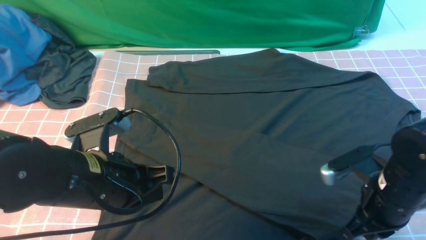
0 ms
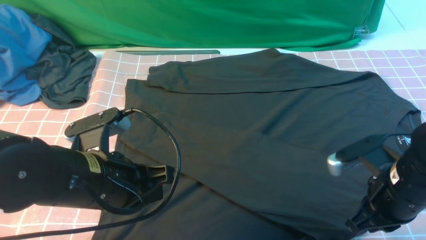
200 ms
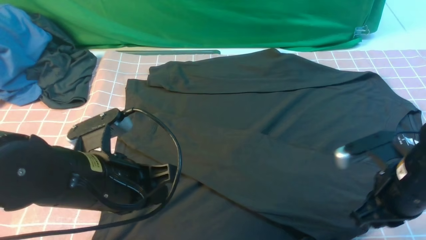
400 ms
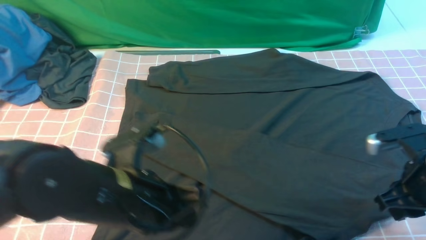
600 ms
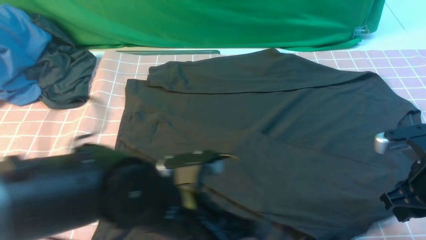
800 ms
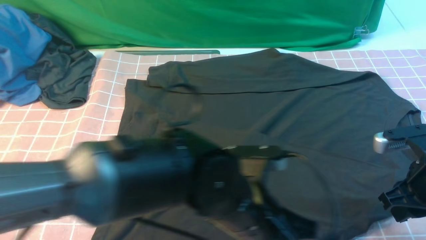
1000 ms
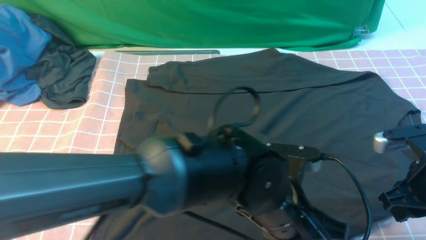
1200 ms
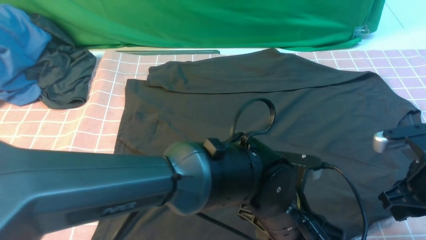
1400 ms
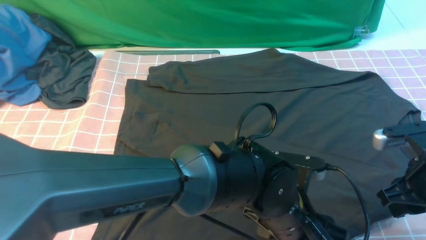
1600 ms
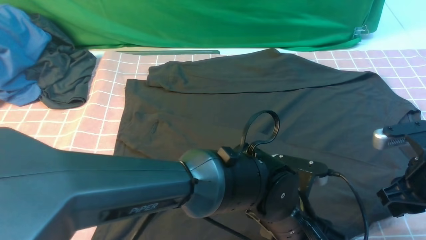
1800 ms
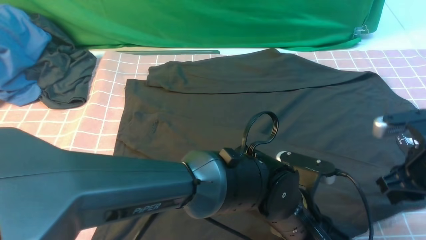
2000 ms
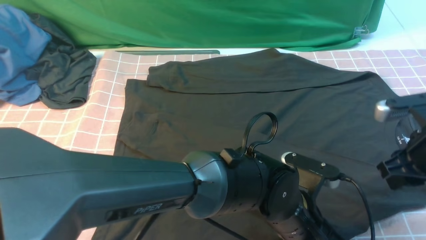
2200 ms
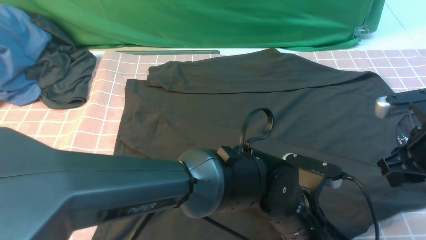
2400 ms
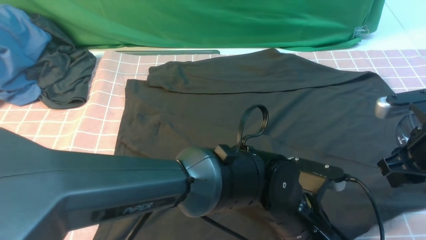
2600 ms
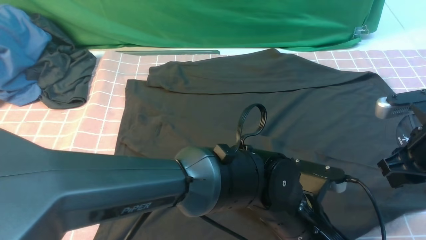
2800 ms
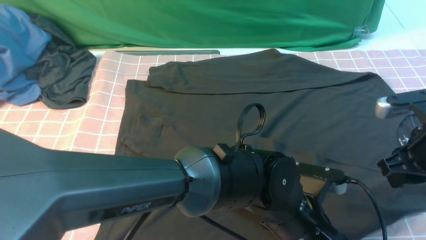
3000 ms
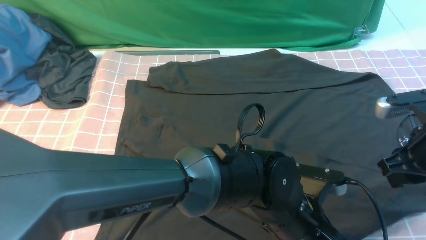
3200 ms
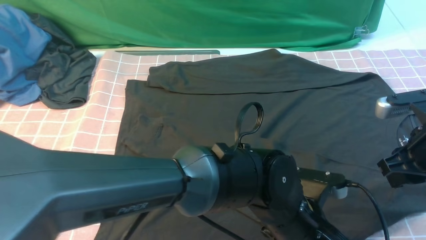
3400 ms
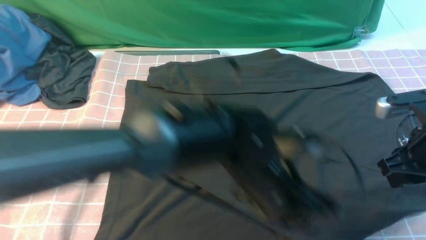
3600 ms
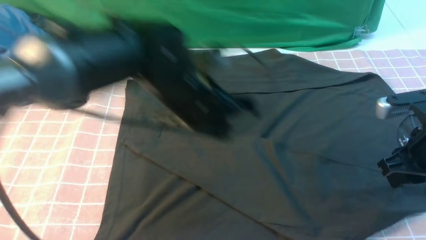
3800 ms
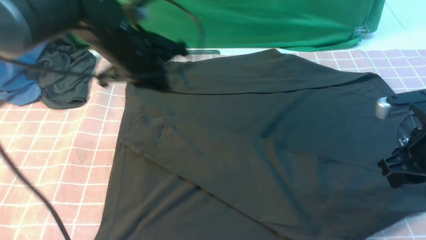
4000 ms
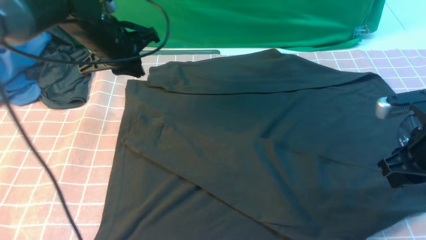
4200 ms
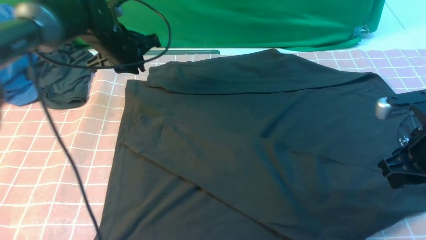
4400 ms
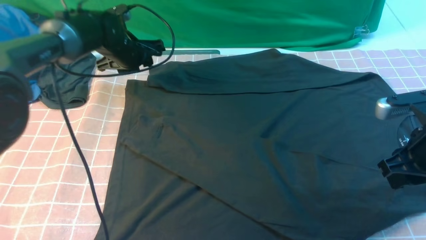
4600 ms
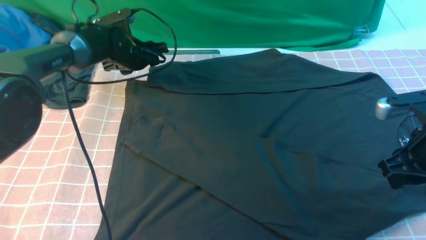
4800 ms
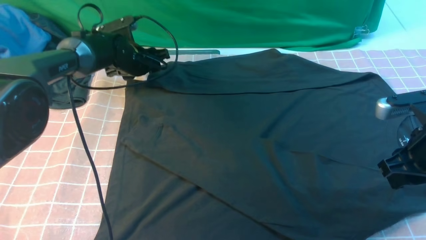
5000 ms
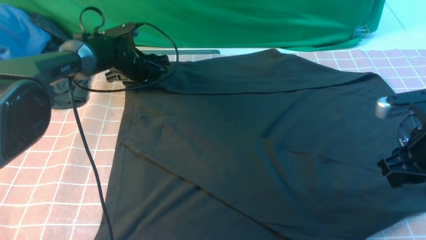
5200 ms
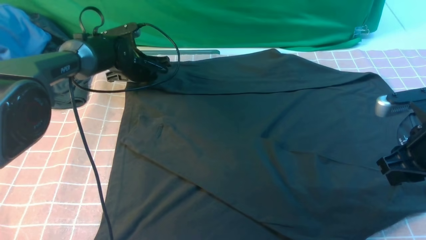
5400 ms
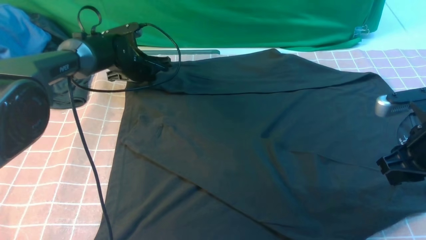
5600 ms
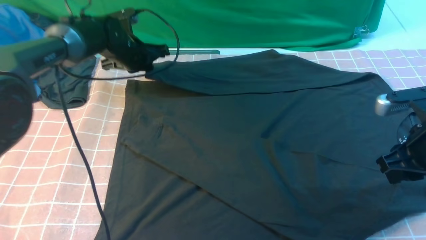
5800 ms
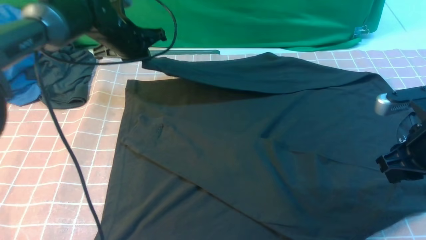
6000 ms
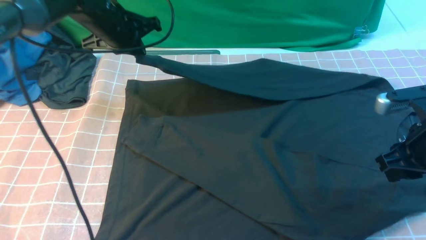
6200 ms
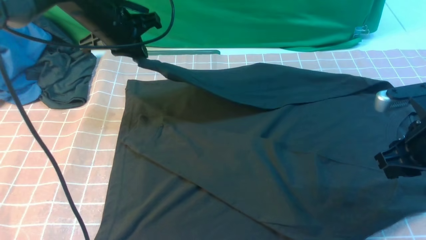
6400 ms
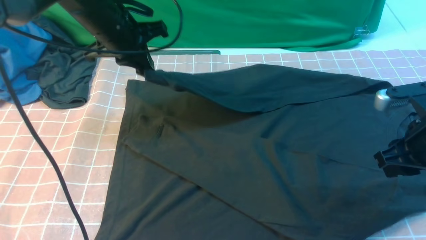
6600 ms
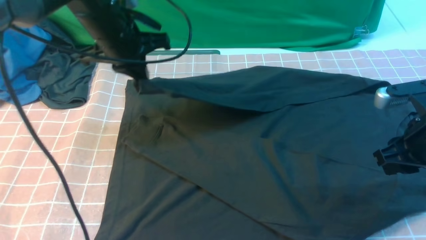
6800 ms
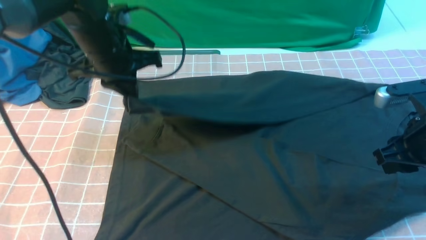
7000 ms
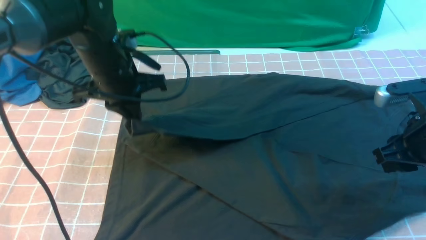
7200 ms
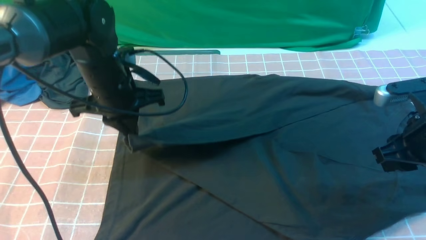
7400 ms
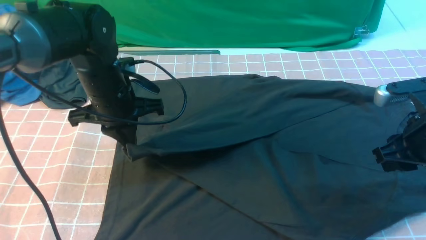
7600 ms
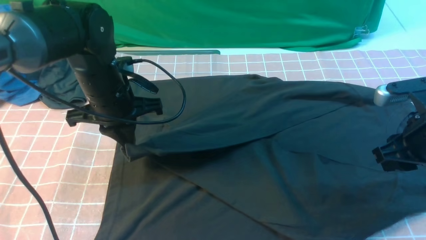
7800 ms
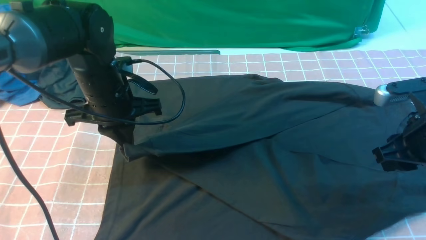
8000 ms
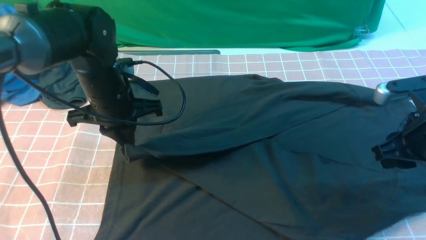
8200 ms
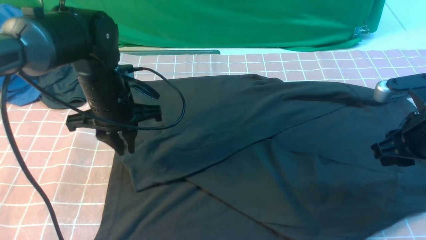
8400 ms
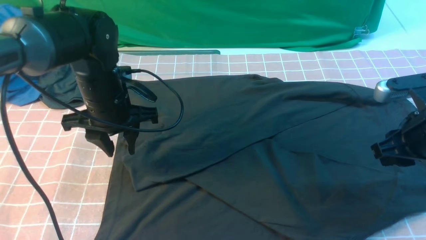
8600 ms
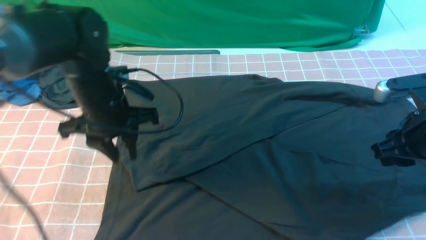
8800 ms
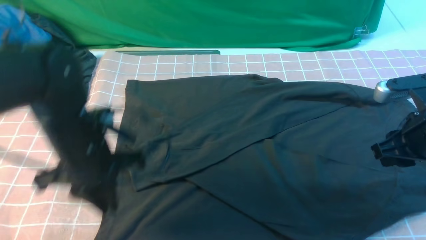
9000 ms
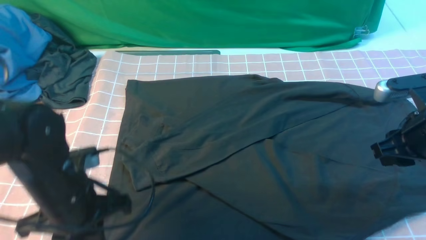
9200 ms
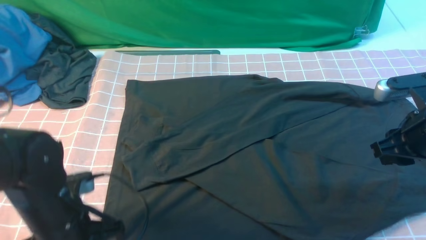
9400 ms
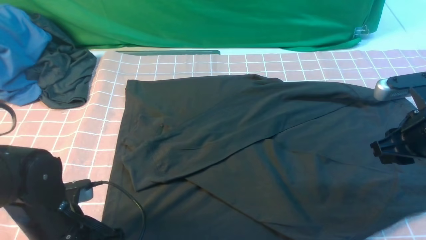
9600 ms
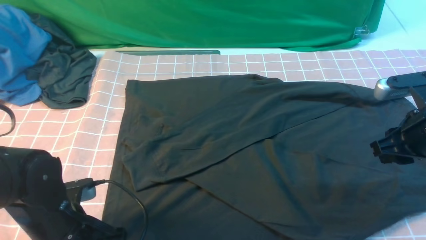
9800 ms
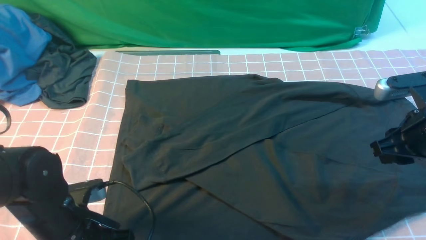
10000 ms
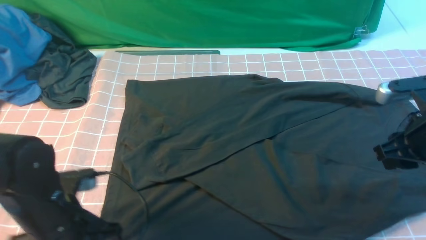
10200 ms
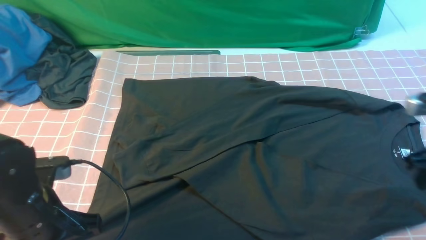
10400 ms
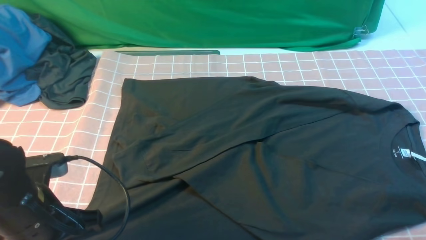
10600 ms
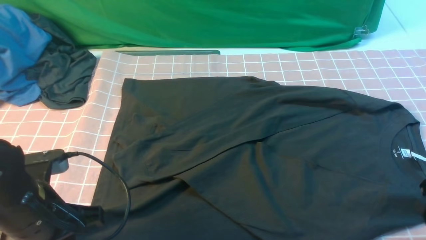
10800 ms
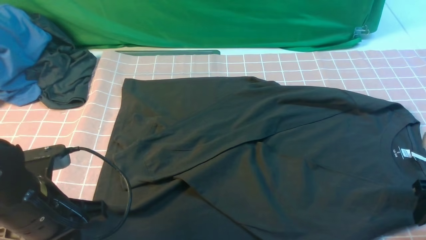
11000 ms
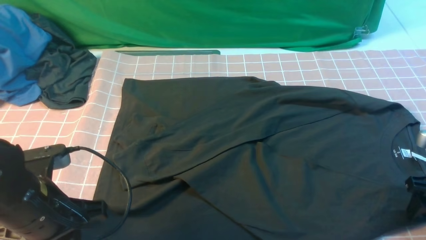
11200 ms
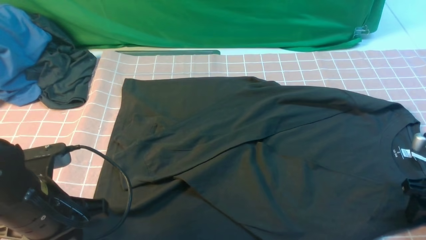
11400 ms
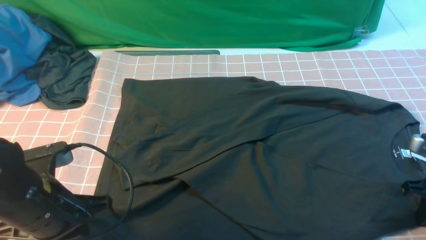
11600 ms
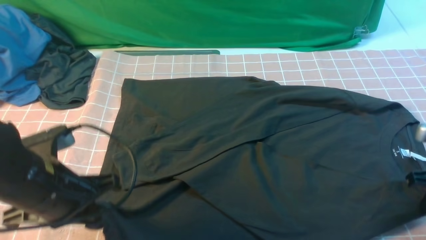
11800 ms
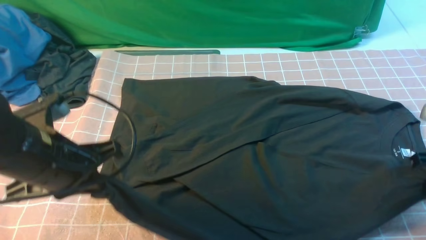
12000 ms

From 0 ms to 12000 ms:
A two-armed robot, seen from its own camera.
Step, from 0 ms to 3400 ms: use the left arm to clamp the cuff farthest from it.
Step, from 3600 ms to 8400 ms: use the left arm to drag and drop the cuff onto the cuff closest to the left arm.
Step, from 8600 ms to 11800 ms: use both arms simultaneously to clamp the lower edge of the clothing fabric.
From 0 ms to 1600 ms: The right gripper shifts some 5 cm to the right, and opens; the left gripper shifts approximately 20 cm to the right, and opens.
From 1600 ms to 3000 ms: The left gripper closes.
From 3000 ms to 4400 ms: The left gripper travels to the left and forward by about 40 cm.
From 4400 ms to 6000 ms: The left gripper goes downward and returns, about 5 cm each way, and opens, then closes again.
From 6000 ms to 7600 ms: The left gripper travels backward by roughly 15 cm.
From 7600 ms to 9000 ms: The left gripper is displaced backward by about 10 cm.
From 9000 ms to 10400 ms: The left gripper shifts approximately 10 cm backward, and opens, then closes again.
From 10400 ms to 12000 ms: The left gripper travels upward by approximately 5 cm, while the right gripper closes up.

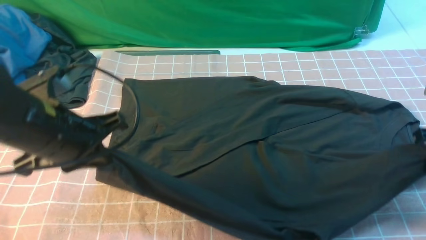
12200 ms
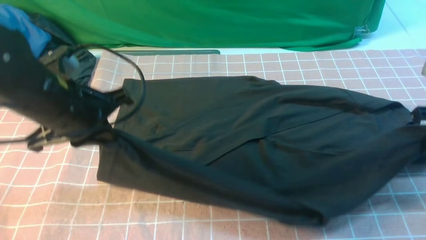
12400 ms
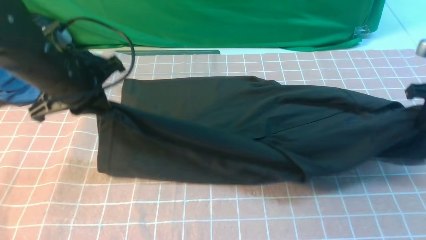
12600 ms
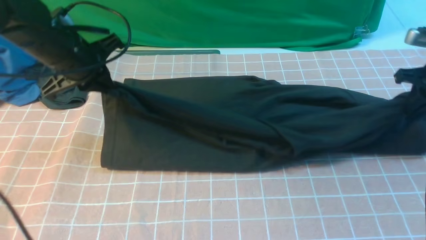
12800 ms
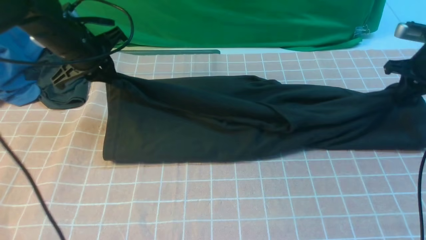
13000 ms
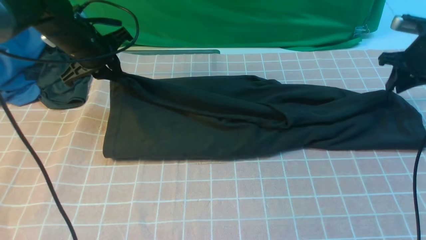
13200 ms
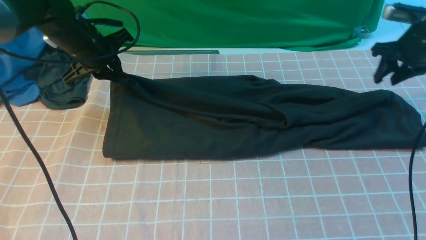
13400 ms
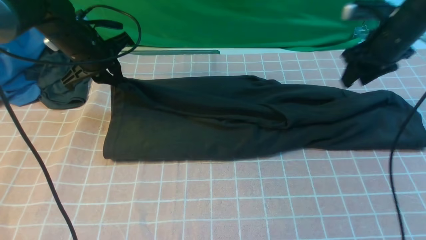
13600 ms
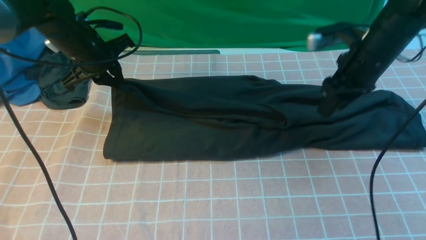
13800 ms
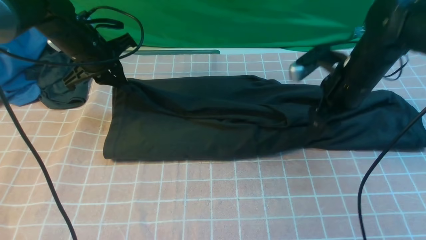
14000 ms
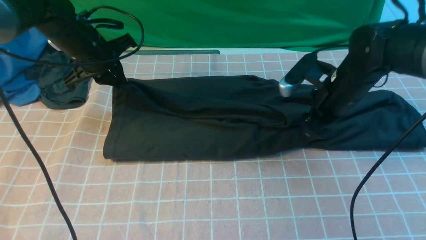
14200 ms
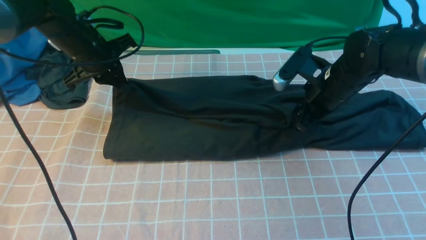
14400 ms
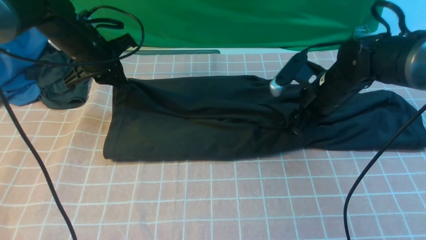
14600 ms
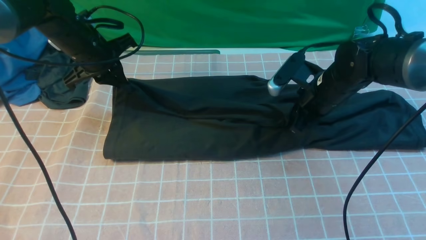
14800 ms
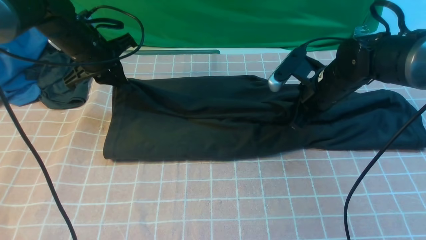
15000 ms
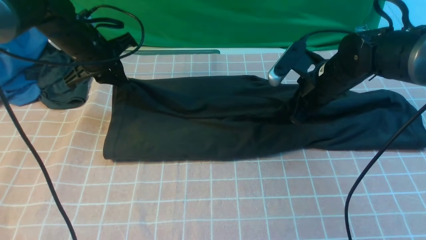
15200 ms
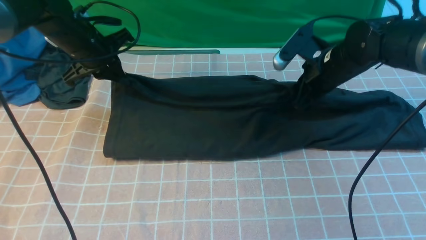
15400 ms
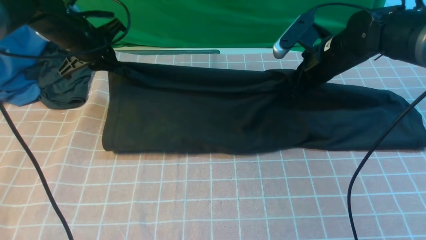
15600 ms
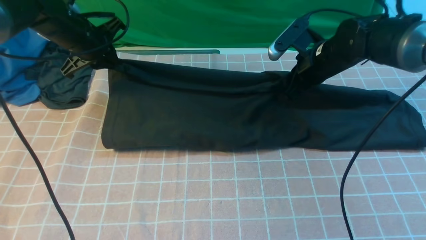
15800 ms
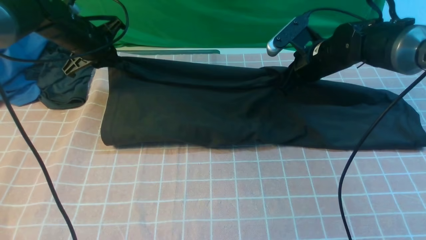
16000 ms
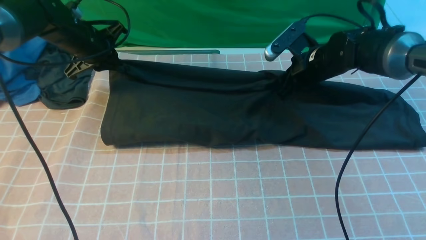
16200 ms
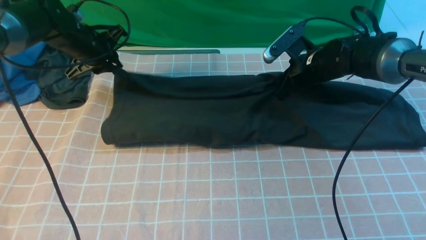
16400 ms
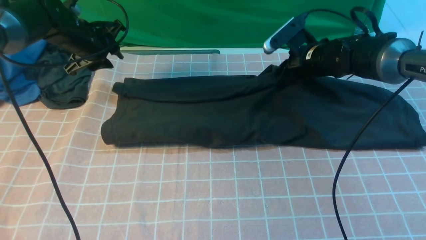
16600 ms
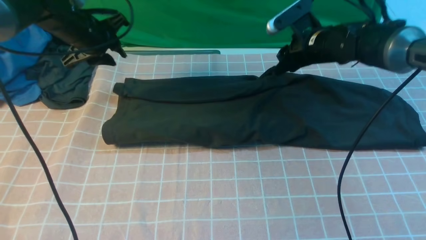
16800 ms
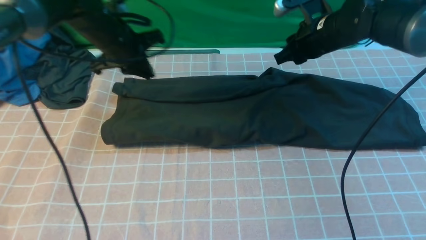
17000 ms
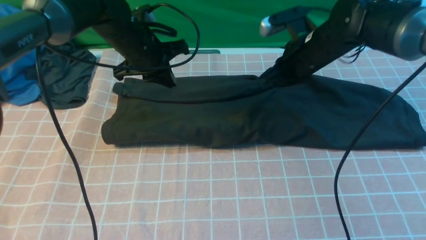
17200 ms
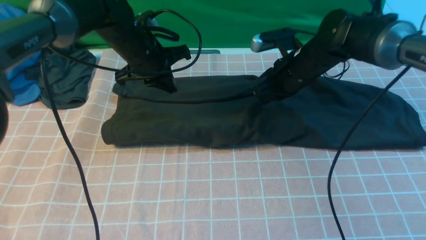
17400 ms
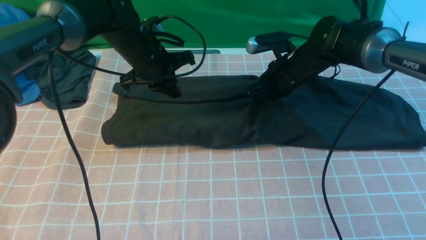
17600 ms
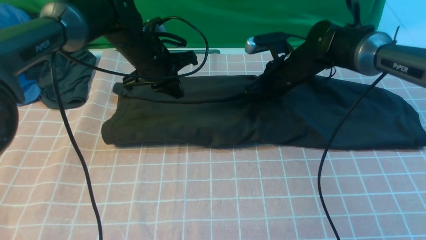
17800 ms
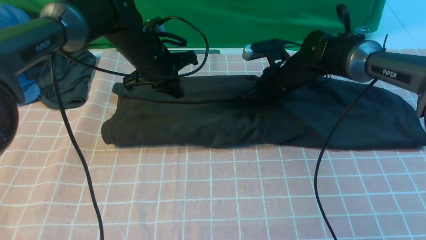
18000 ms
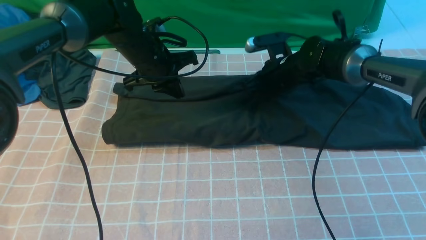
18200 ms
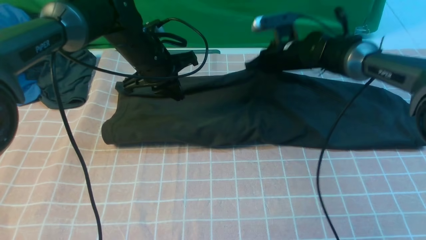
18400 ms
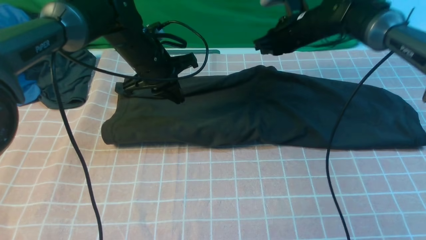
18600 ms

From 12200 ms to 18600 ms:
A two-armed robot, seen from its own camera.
From 12200 ms to 13800 ms: The right gripper moves to the left and forward, about 15 cm, and opens its fingers. The left gripper moves forward, about 20 cm.
From 13800 ms to 15400 ms: The right gripper shifts by approximately 5 cm, and closes its fingers.
From 15400 ms to 17000 ms: The left gripper shifts roughly 5 cm to the right, and opens, then closes again.
From 17000 ms to 18600 ms: The left gripper shifts approximately 5 cm to the right; the right gripper moves forward, approximately 5 cm, and reaches roughly 10 cm downward, then returns.
